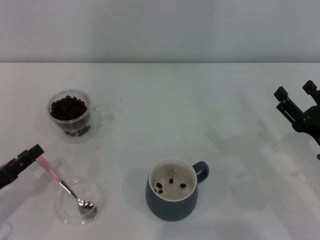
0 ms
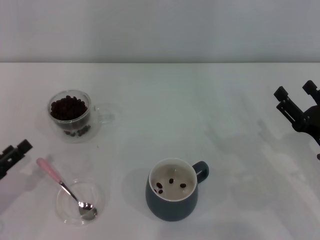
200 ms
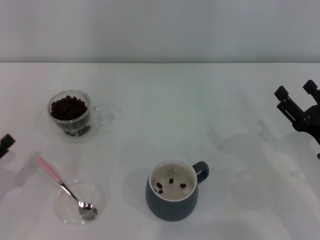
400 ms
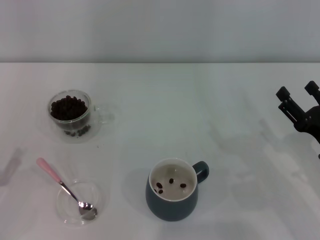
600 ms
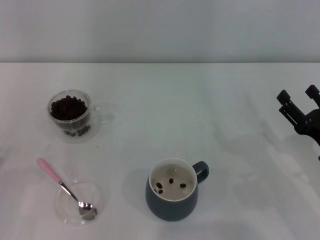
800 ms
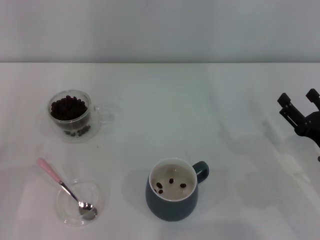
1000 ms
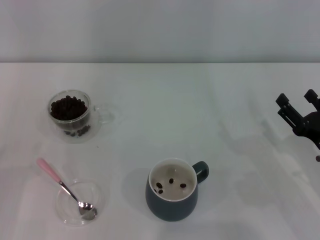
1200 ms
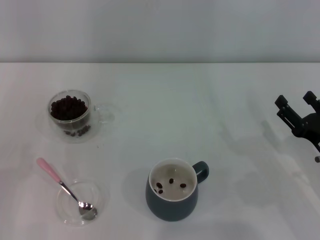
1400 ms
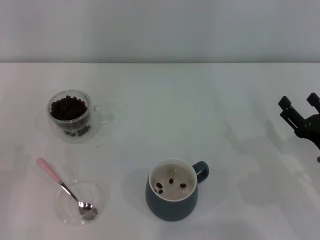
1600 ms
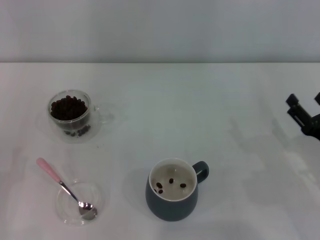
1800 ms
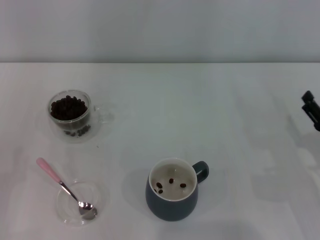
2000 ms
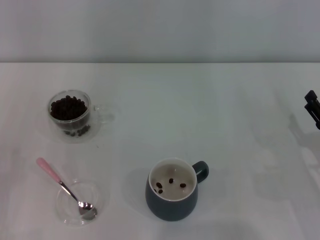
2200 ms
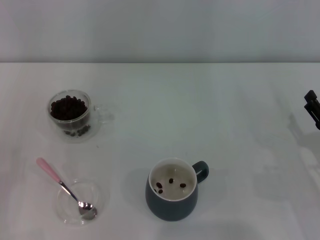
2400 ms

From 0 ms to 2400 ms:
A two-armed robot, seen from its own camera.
Task of the whole recording: Use a pink spoon to take out the coffee beans from the glass and pour them into the gray cup.
From 0 ms to 1200 ms: The left gripper opens up.
From 1200 ms to 2400 ms: The grippers move only a little.
